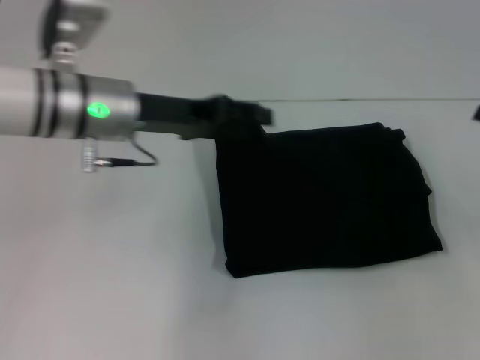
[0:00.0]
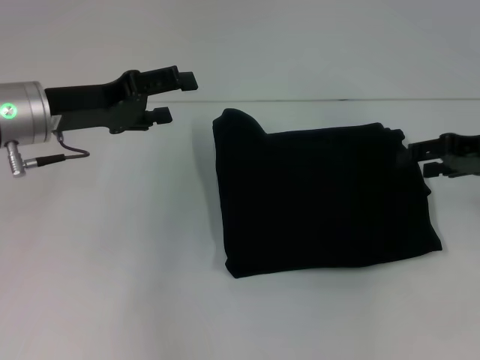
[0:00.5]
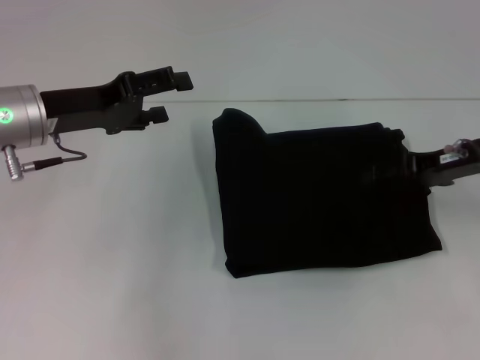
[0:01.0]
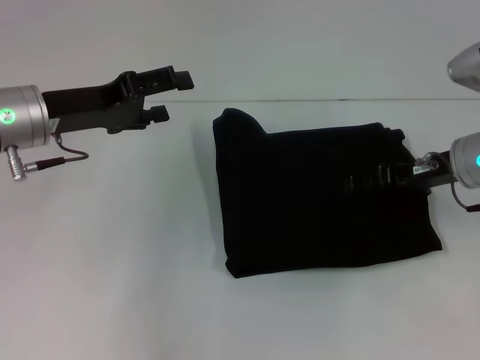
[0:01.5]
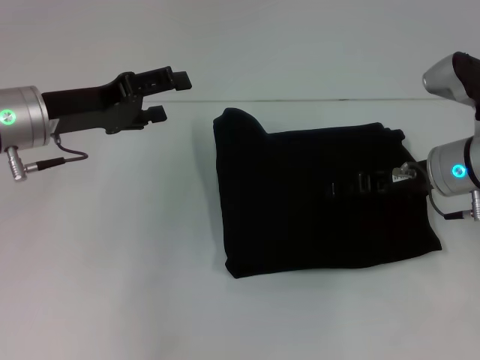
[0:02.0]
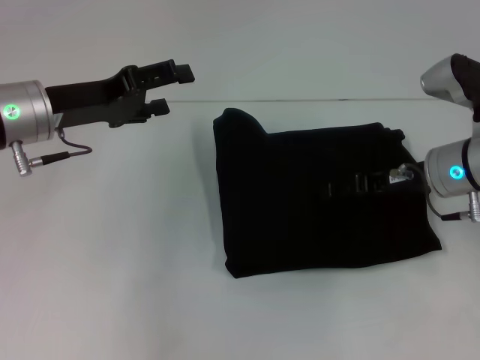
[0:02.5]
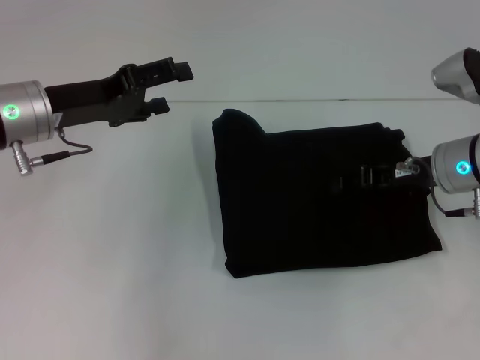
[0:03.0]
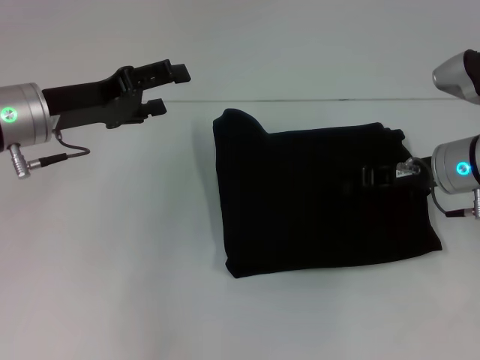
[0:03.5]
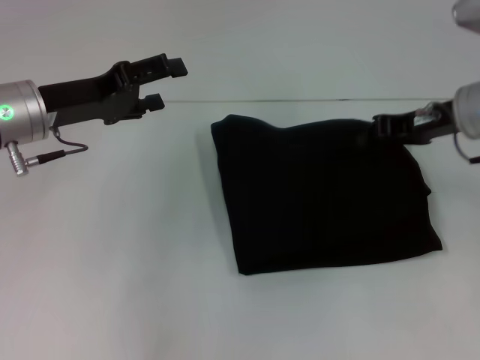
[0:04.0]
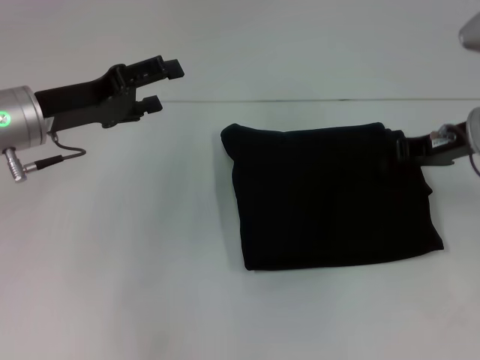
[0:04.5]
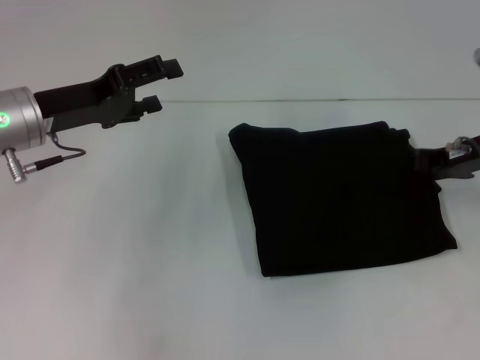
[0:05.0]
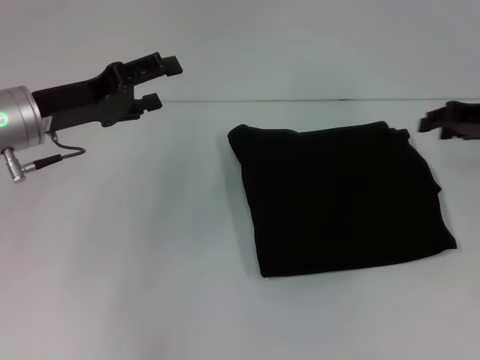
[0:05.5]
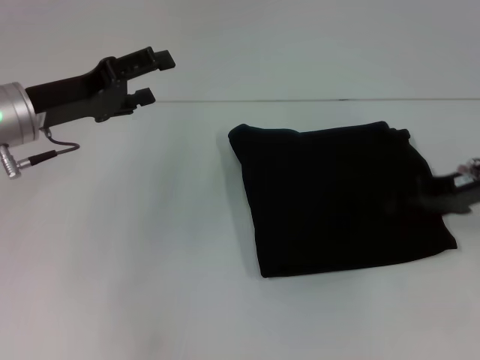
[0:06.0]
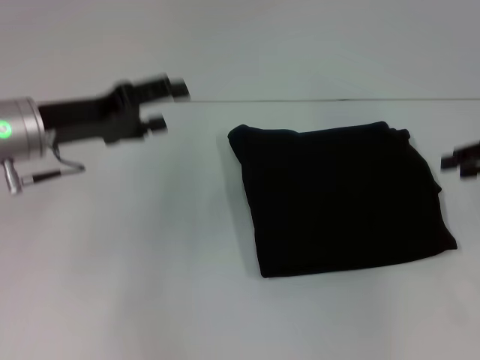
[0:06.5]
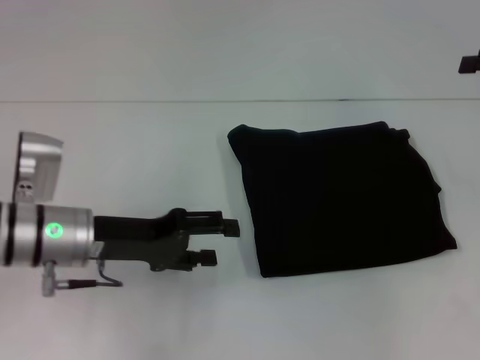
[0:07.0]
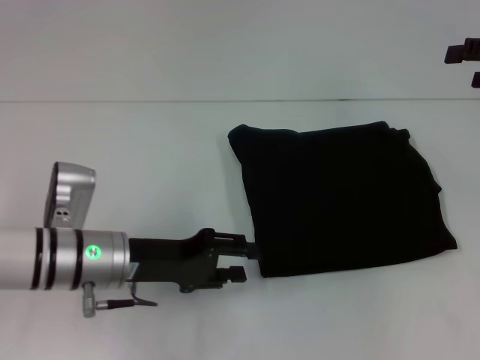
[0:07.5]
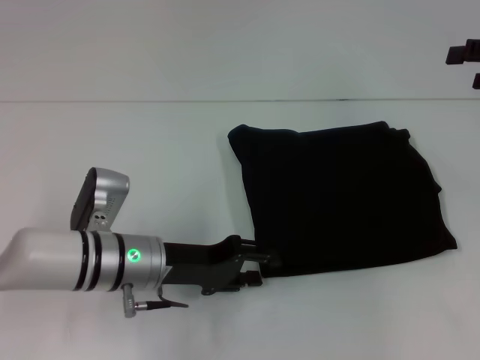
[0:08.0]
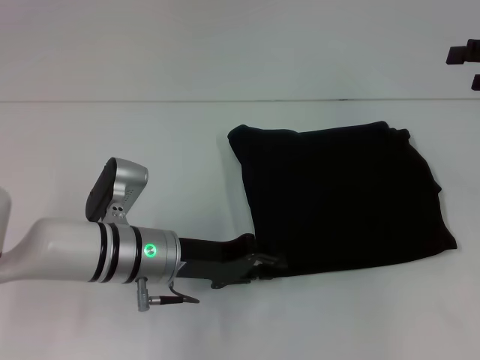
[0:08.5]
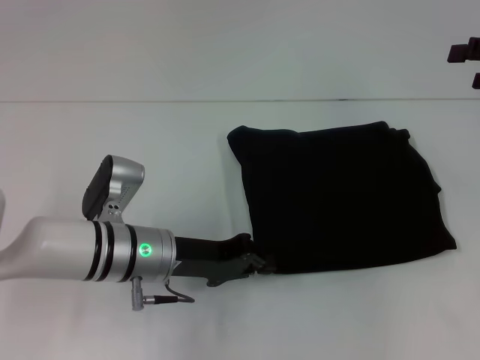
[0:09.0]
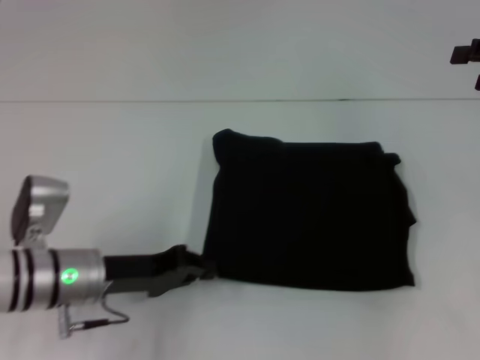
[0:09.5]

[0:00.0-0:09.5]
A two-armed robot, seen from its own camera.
0:00.0 to 0:02.0: The left gripper moves to the left, roughly 10 cm, and opens. The right gripper moves to the left, some 15 cm.
0:02.0 to 0:04.0: The right gripper heads upward, covering about 5 cm, and closes.
0:04.0 to 0:05.5: The right gripper moves to the right, some 5 cm, and opens its fingers.
0:05.5 to 0:07.5: The right gripper goes roughly 5 cm upward, and opens, while the left gripper heads downward, to the right and backward, covering approximately 15 cm.
0:07.5 to 0:09.5: The left gripper closes its fingers.

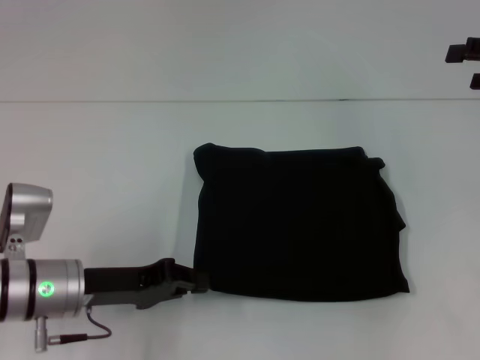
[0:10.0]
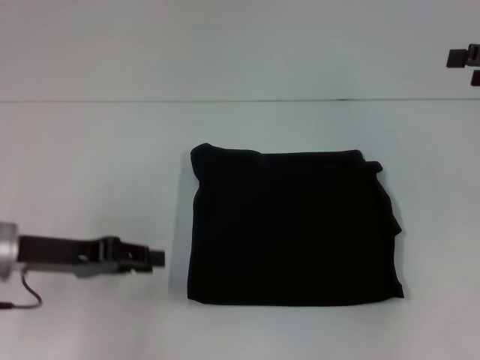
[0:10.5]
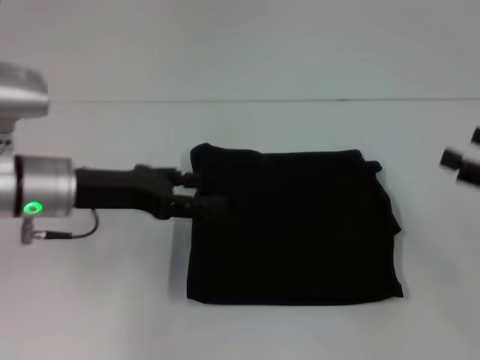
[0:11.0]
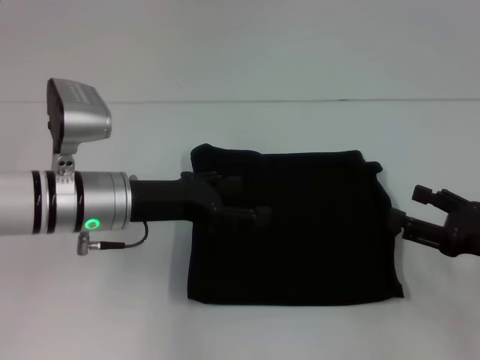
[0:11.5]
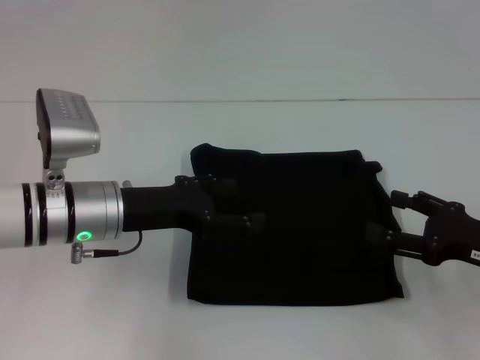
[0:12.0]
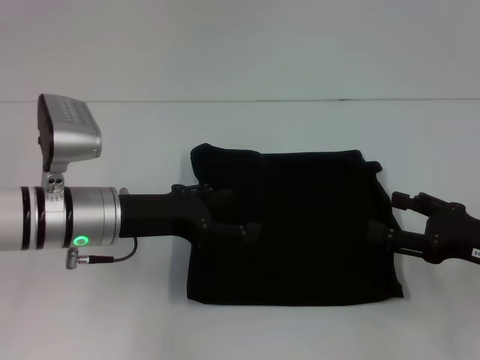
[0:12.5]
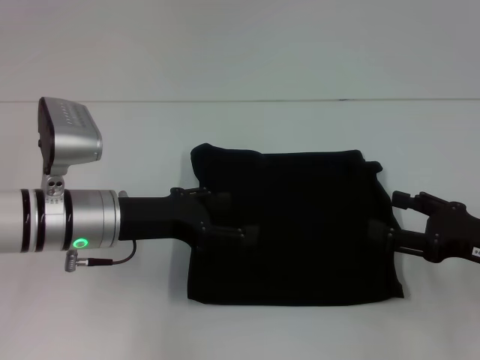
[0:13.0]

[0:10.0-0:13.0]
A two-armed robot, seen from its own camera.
0:10.0 to 0:11.5: The left gripper heads forward and upward, covering some 10 cm, and opens up. Meanwhile the right gripper travels downward and backward by some 20 cm.
0:11.5 to 0:13.0: There are only small adjustments of the grippers.
